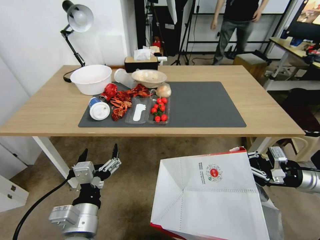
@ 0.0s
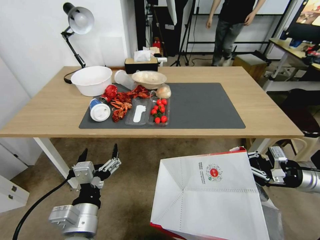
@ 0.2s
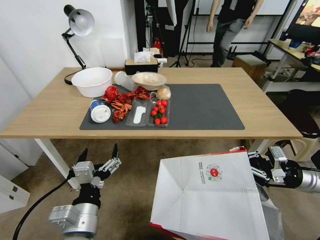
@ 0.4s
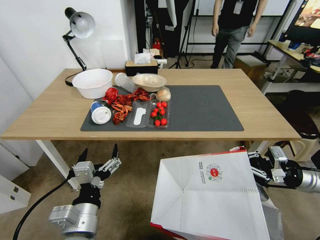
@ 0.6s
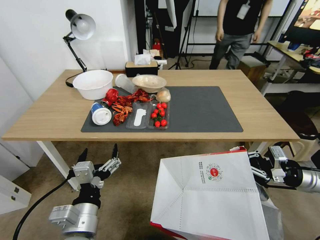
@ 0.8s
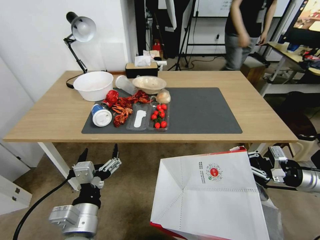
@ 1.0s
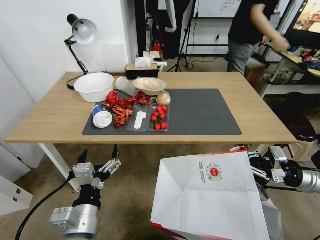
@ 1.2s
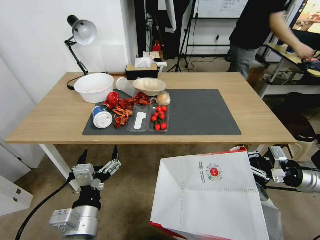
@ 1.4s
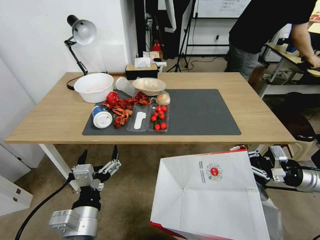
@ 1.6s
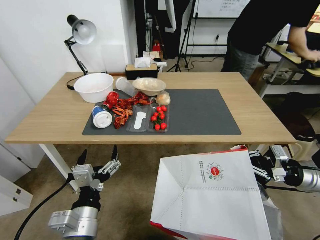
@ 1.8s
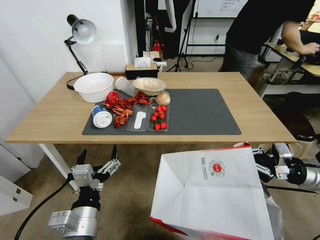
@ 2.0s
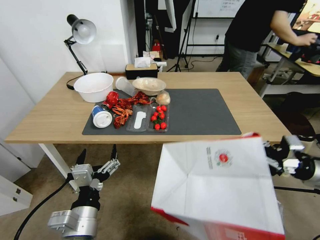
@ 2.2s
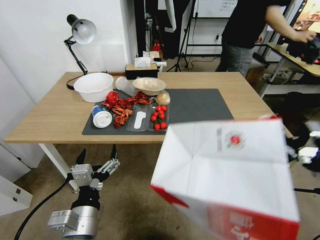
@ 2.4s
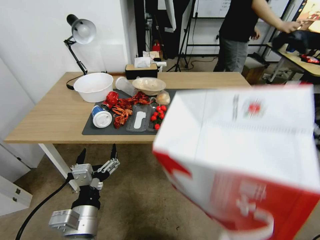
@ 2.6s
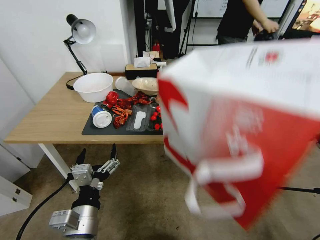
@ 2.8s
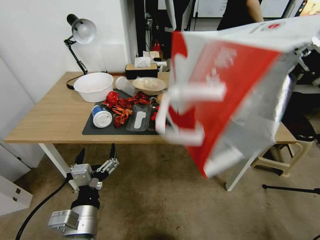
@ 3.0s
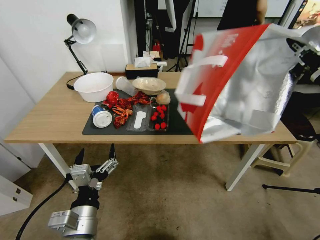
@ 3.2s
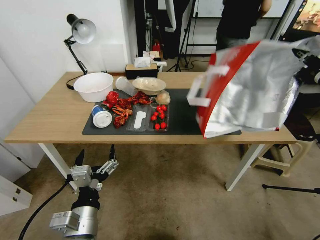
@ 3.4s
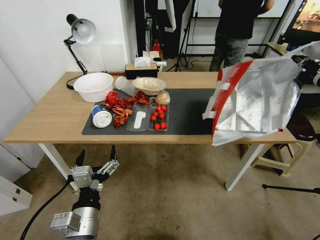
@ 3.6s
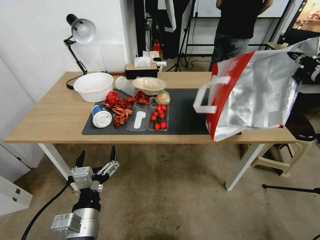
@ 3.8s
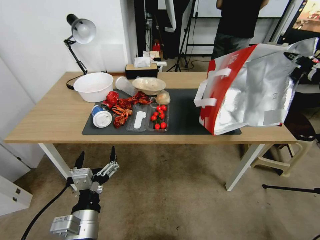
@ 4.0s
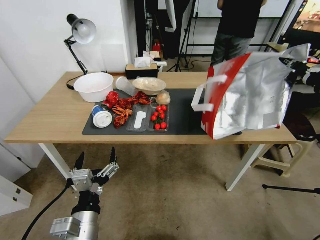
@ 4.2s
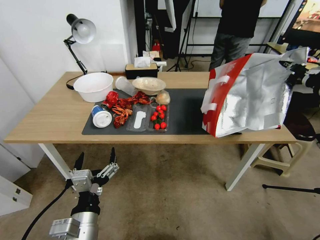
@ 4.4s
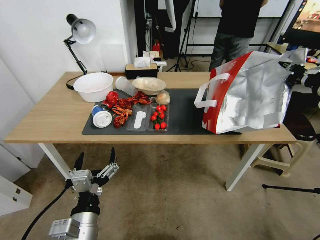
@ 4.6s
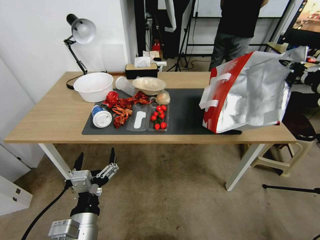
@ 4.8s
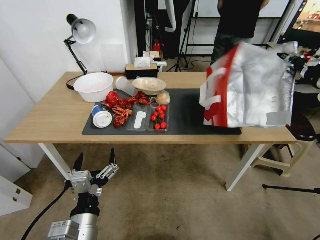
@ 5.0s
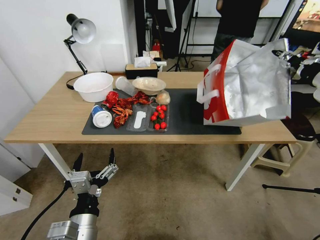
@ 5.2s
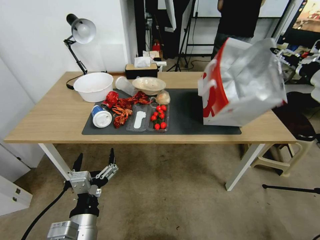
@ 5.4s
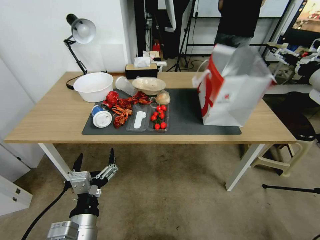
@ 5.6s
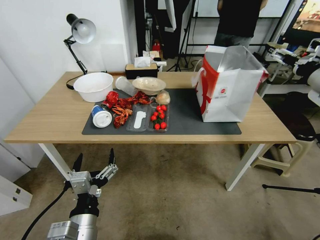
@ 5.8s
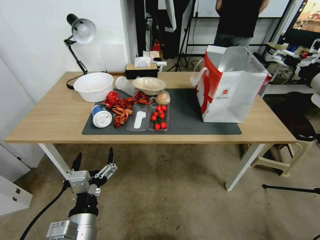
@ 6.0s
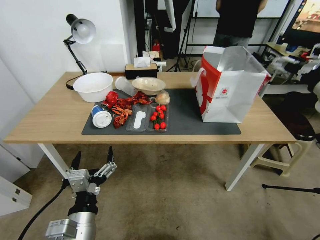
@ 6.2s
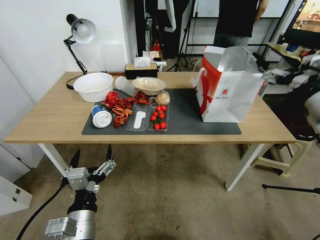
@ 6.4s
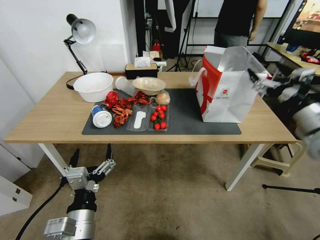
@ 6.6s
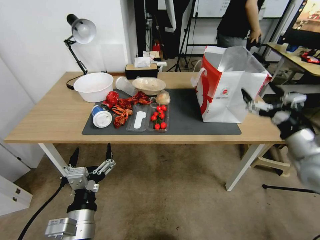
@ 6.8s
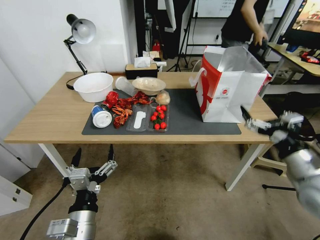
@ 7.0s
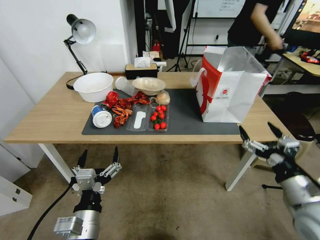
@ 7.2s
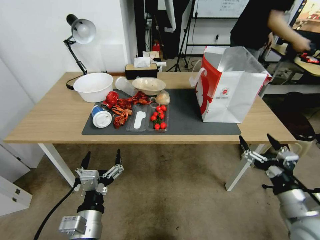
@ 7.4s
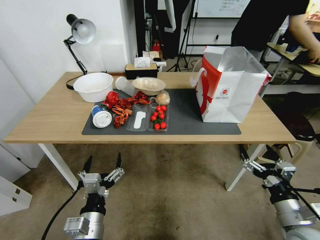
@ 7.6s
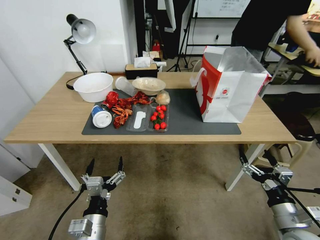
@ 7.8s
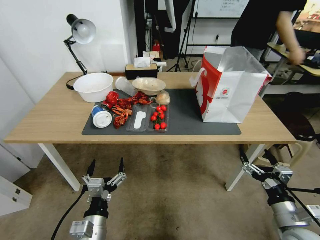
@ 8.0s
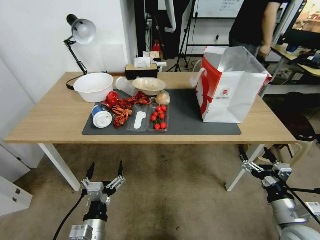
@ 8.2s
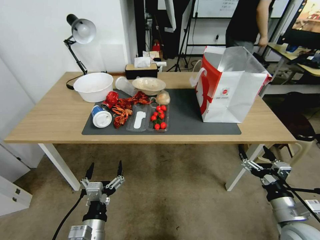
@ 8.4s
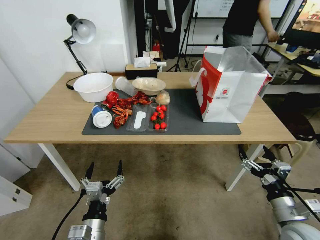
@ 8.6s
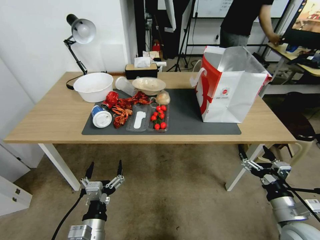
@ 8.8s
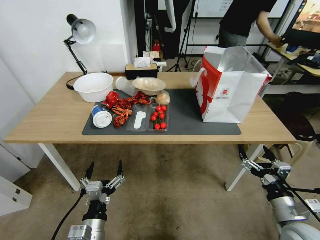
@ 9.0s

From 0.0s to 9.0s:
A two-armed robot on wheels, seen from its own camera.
Task of the whole recording: Pick up the food delivery bag from the floor and place it on the table.
From 1.6s to 3.0s: The right gripper shifts approximately 15 cm upward.
From 3.0s to 4.4s: The right gripper travels forward and to the right by approximately 10 cm.
From 4.4s to 6.0s: The right gripper opens its fingers.
From 6.0s to 7.6s: The right gripper goes some 35 cm downward and backward; the left gripper moves roughly 5 cm.
From 7.6s to 9.0s: The grippers move only a little.

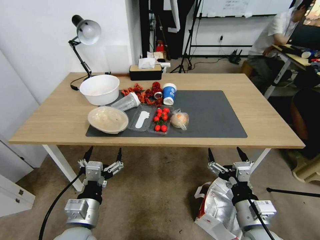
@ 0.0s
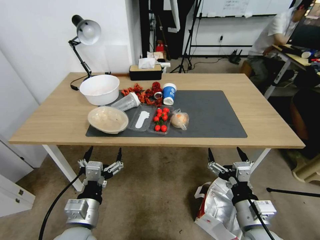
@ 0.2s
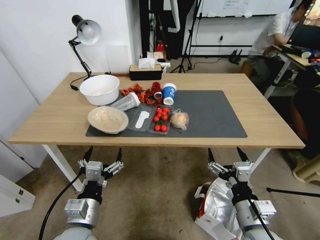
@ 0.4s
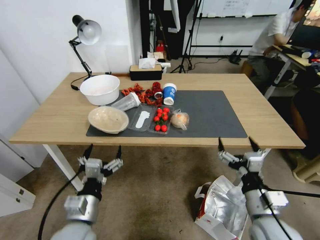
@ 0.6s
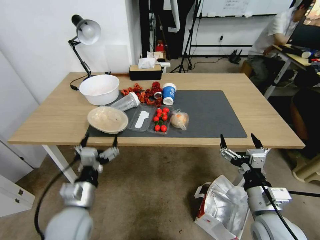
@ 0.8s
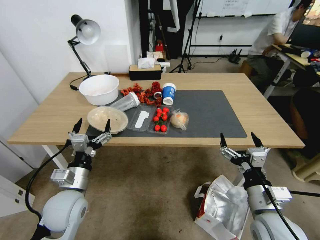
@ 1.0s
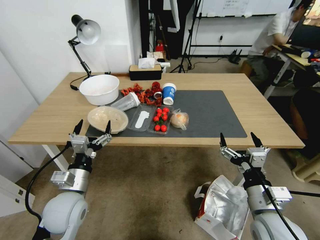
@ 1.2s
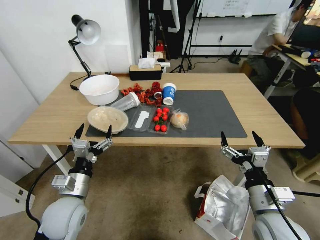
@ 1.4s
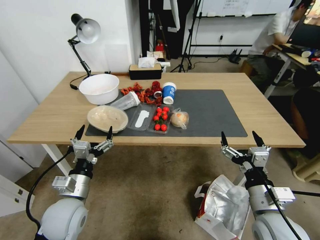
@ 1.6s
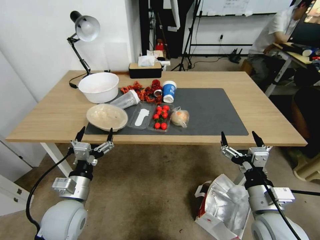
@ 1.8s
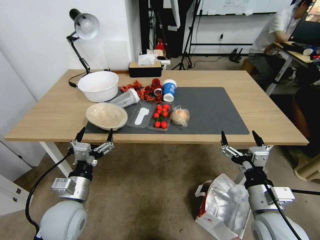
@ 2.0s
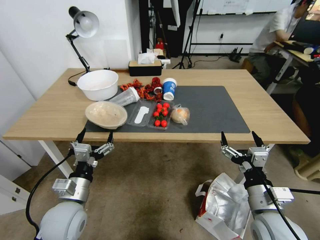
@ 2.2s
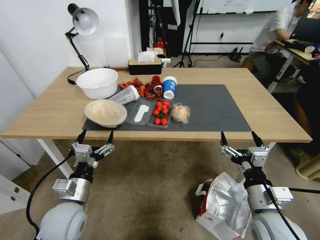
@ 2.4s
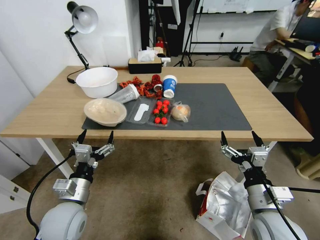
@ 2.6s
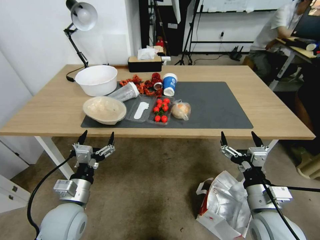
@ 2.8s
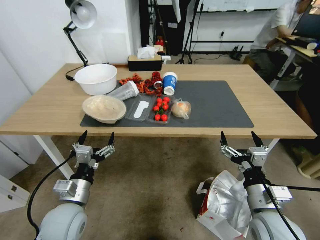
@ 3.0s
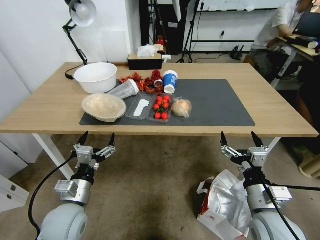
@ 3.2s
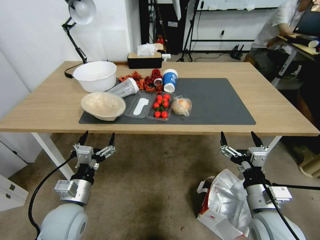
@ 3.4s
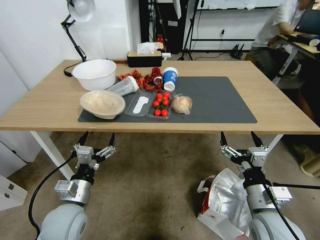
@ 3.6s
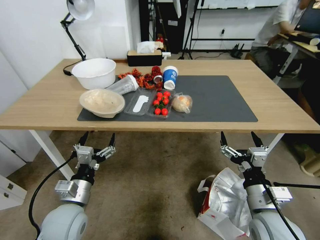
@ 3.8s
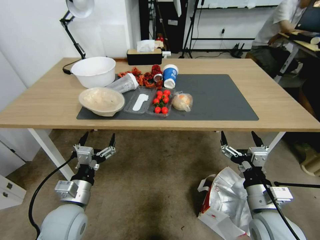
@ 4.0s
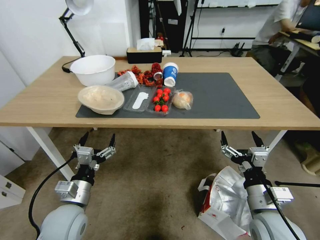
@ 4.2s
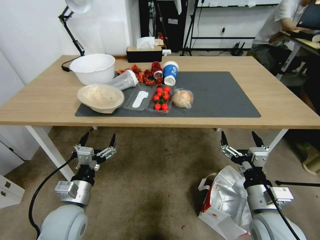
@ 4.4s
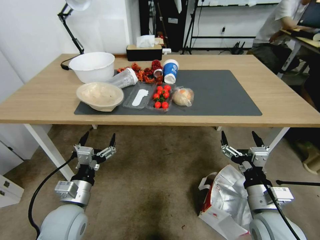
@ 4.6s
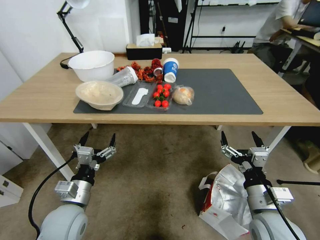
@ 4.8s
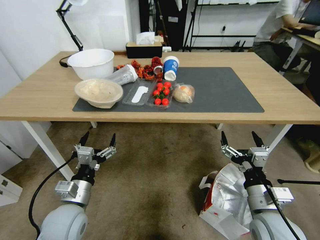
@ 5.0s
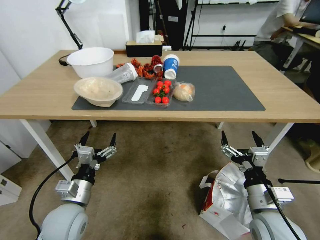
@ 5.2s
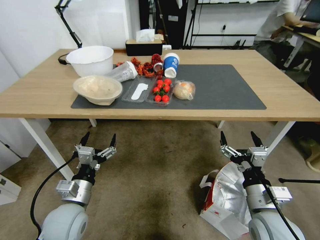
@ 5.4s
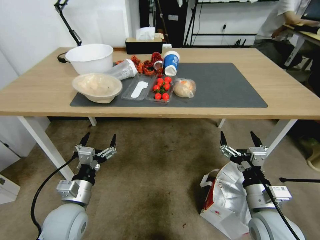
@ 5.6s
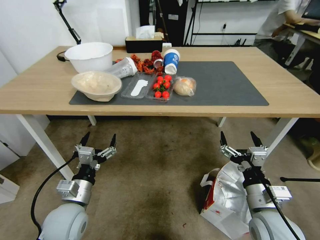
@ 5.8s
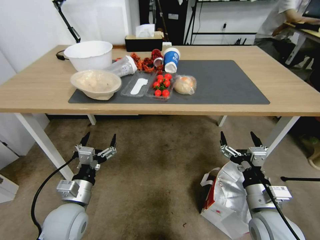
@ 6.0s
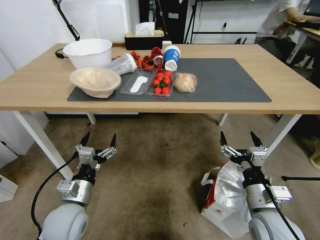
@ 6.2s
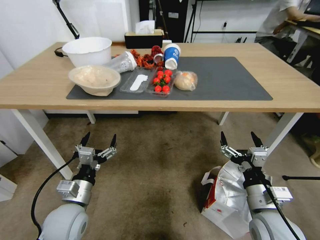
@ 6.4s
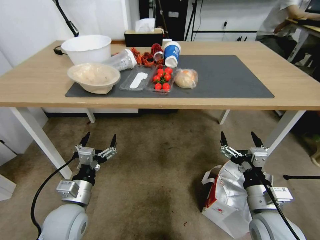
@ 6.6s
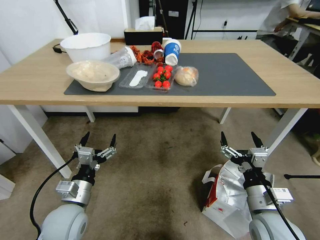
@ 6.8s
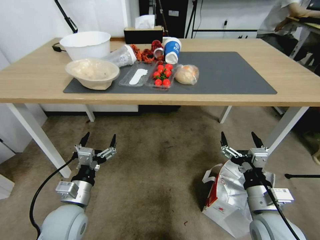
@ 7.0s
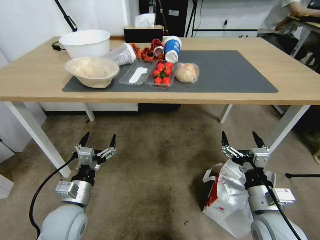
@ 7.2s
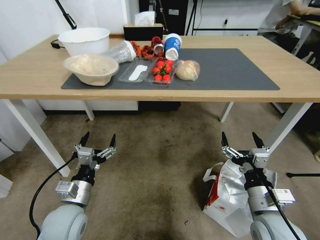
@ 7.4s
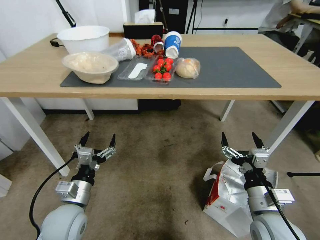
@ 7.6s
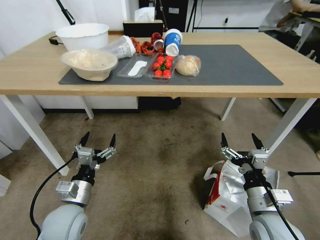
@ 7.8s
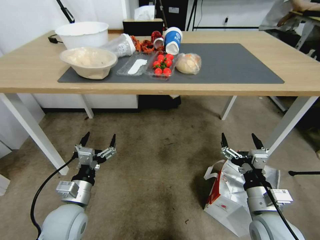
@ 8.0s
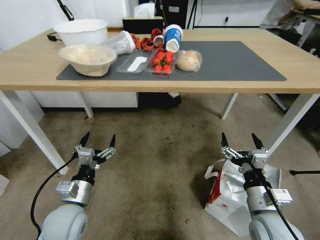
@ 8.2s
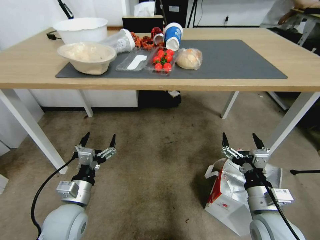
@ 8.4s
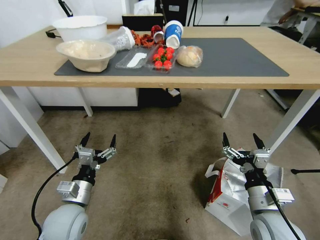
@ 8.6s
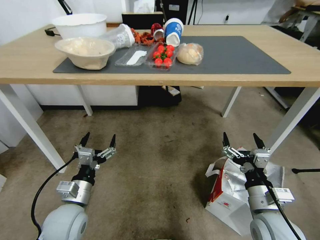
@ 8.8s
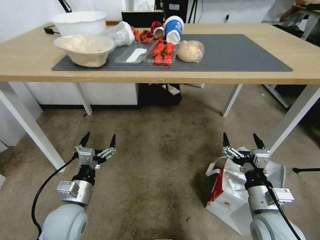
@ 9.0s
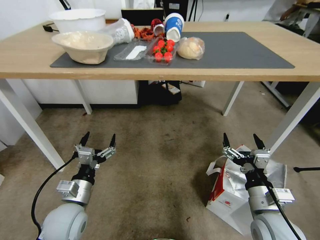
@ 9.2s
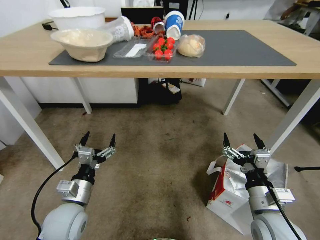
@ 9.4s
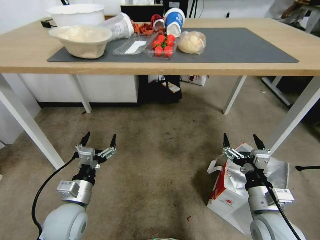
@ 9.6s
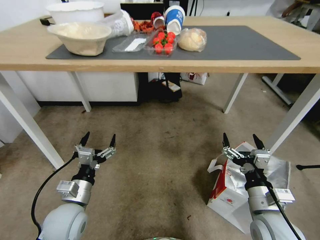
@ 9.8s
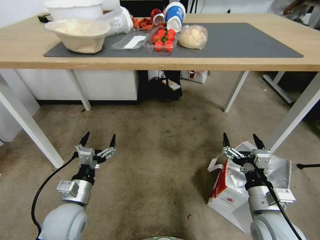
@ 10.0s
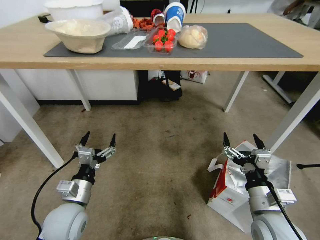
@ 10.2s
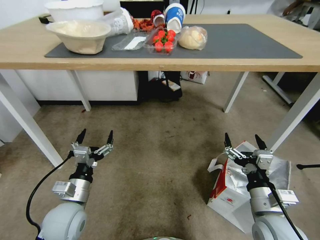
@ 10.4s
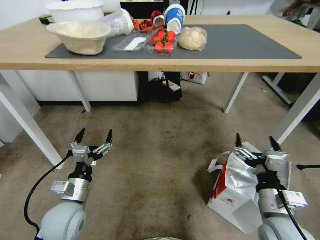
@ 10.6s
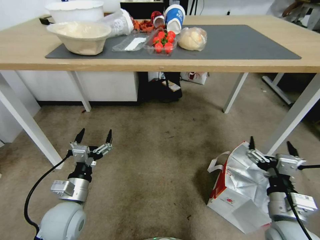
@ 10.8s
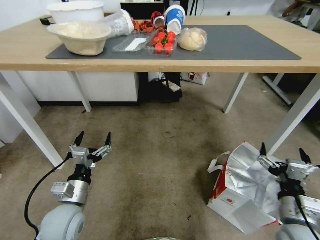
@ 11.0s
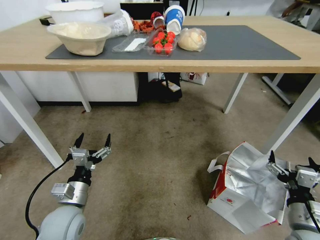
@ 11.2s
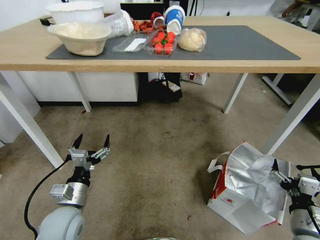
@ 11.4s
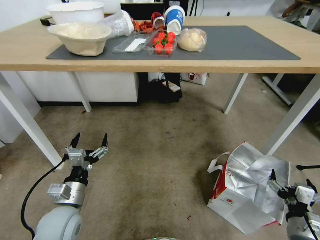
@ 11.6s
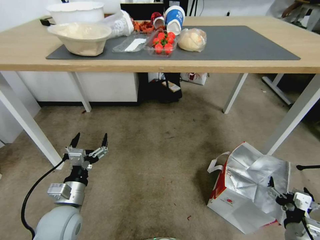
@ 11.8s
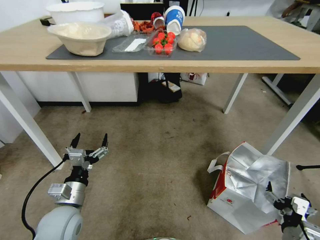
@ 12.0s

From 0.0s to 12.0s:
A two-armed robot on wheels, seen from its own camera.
Task of the whole recording: Pick up the food delivery bag from the floor and place it on the table.
From 10.4s to 12.0s: The right gripper is displaced downward, to the right and backward by roughly 15 cm.

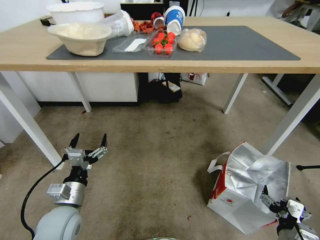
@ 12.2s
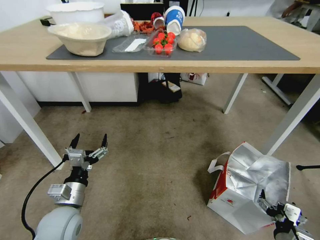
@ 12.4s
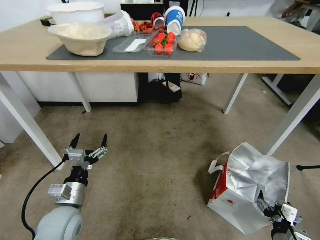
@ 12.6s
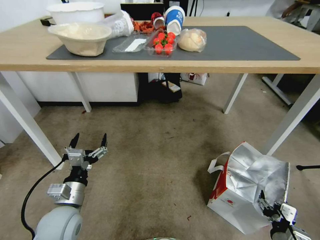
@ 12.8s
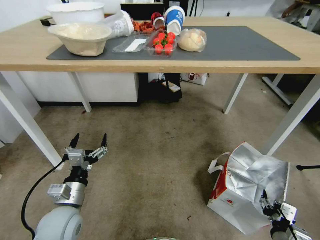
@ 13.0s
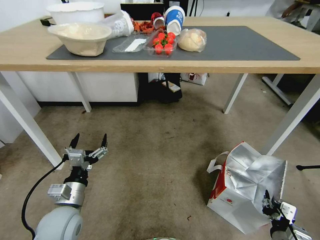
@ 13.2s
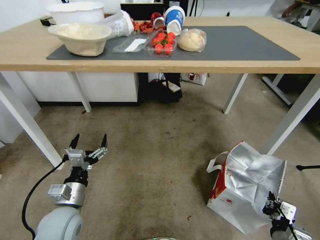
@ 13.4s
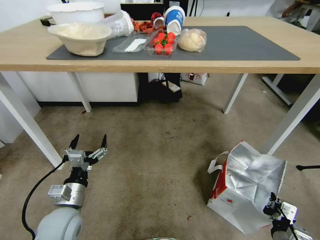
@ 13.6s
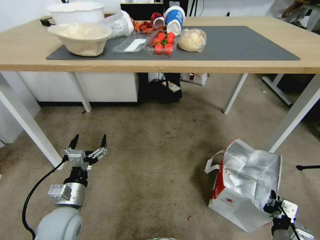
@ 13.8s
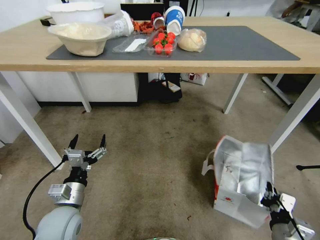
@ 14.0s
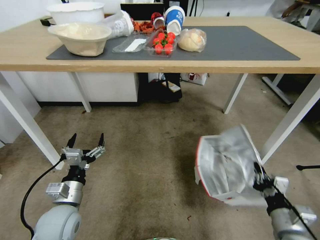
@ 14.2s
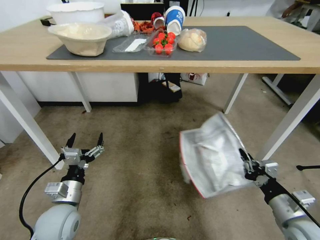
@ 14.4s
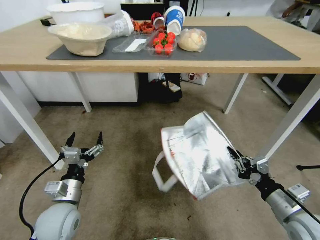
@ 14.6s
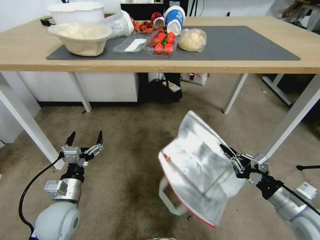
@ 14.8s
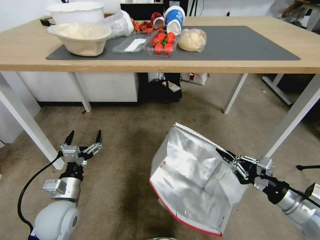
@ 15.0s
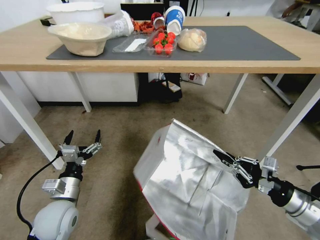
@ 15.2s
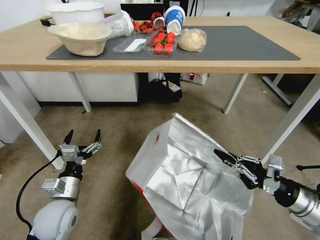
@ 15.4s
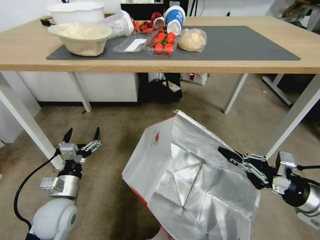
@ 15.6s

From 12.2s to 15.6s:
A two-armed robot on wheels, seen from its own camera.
Task of the whole recording: Pick up the food delivery bag from the floor and place it on the table.
From 12.2s to 13.8s: The right gripper closes up.
From 13.8s to 15.6s: The right gripper goes roughly 20 cm upward and forward.
